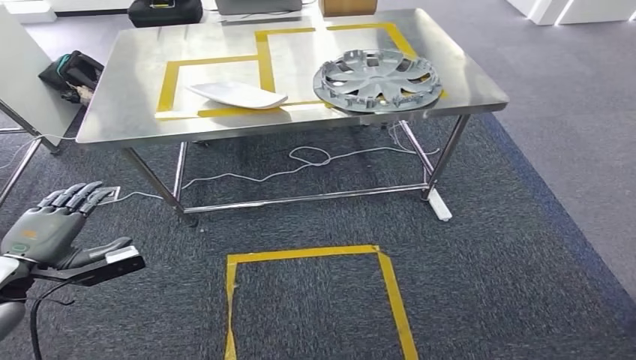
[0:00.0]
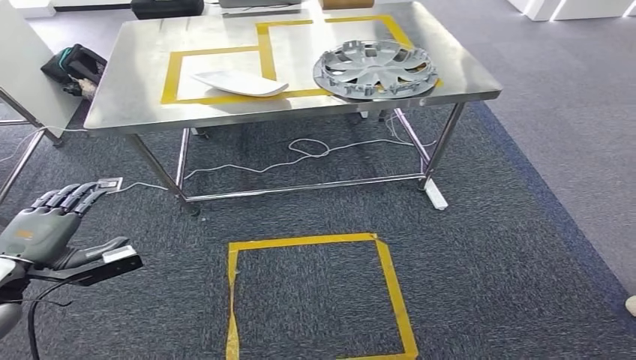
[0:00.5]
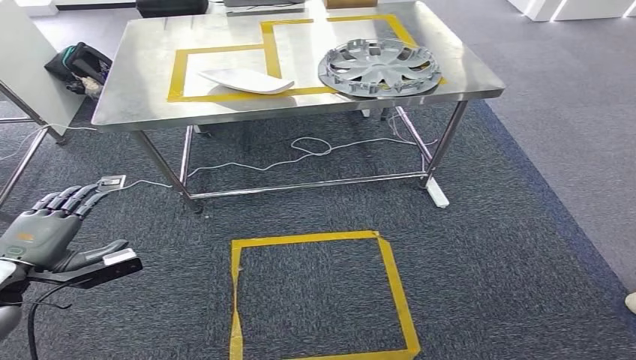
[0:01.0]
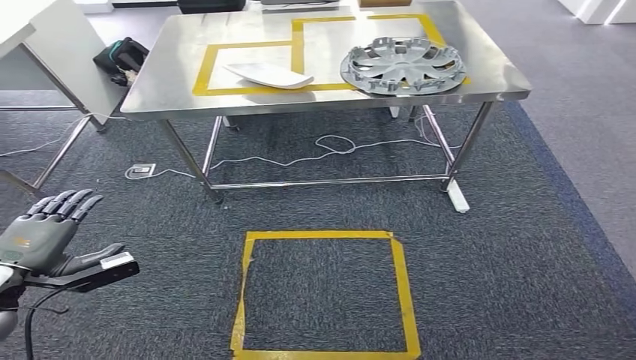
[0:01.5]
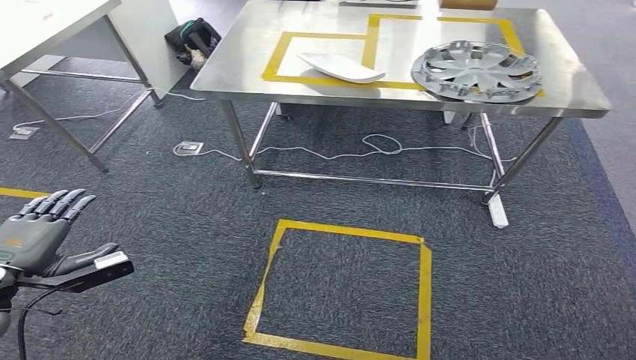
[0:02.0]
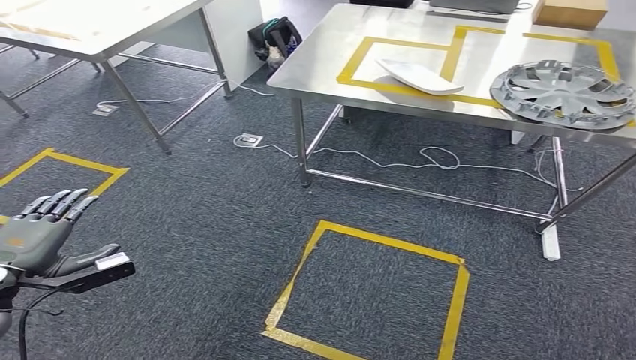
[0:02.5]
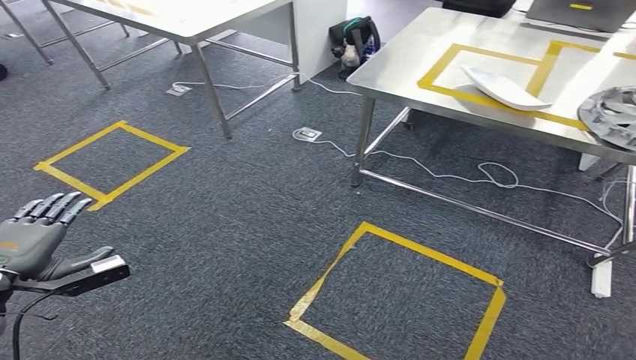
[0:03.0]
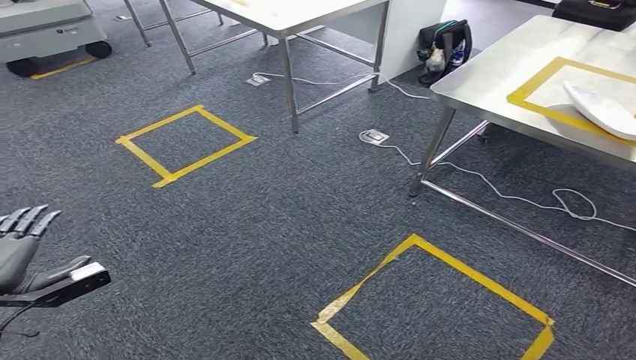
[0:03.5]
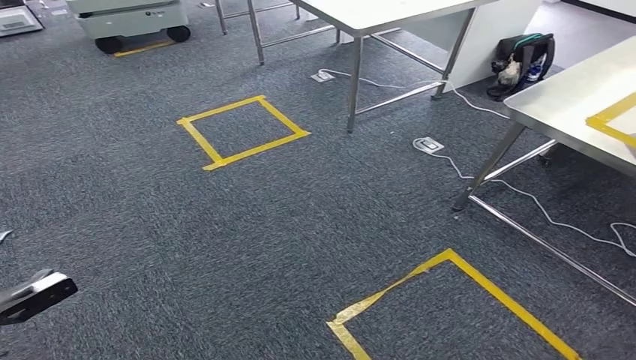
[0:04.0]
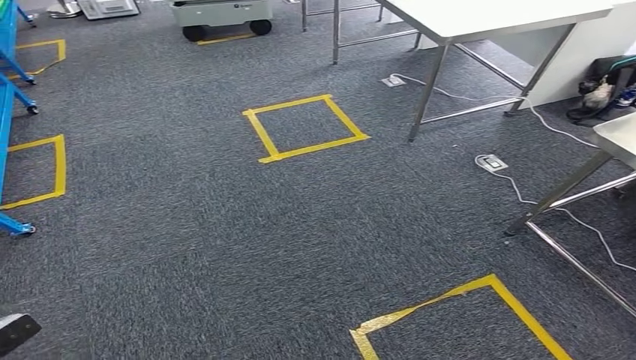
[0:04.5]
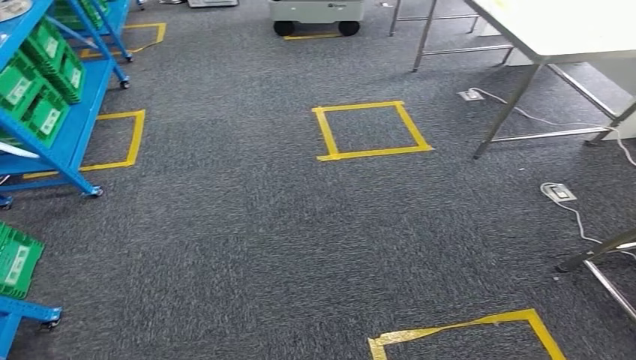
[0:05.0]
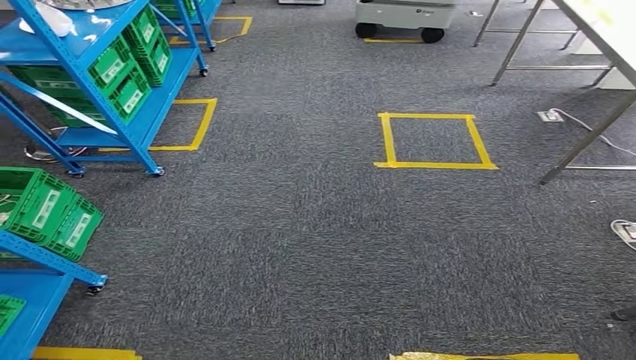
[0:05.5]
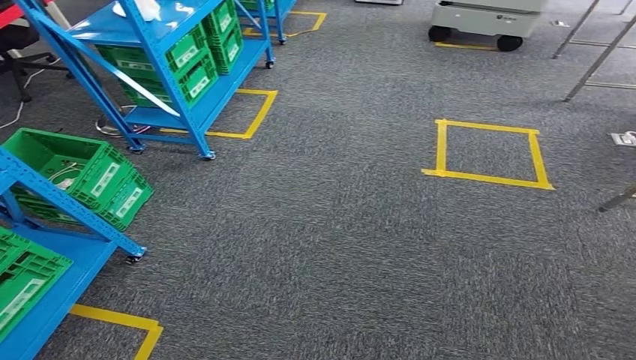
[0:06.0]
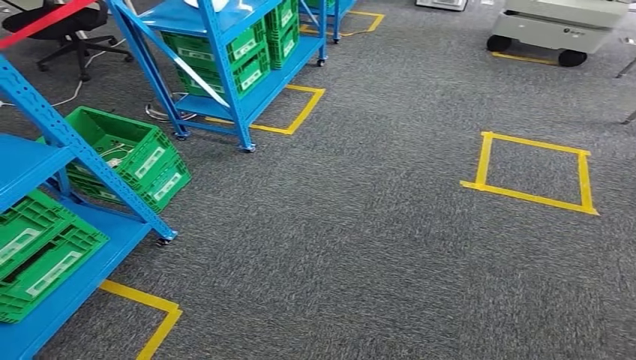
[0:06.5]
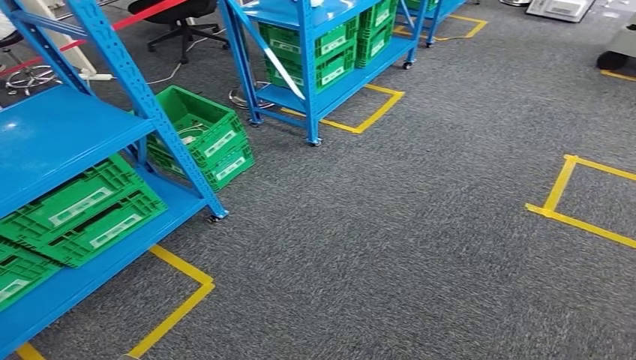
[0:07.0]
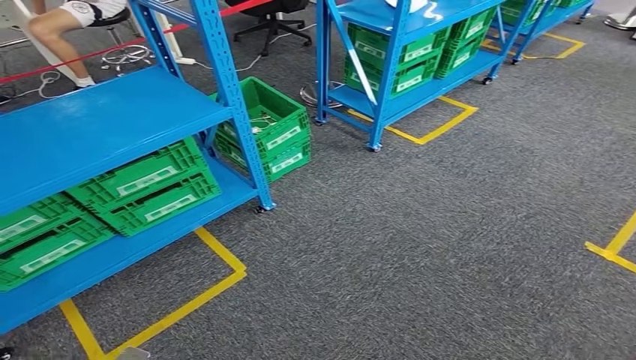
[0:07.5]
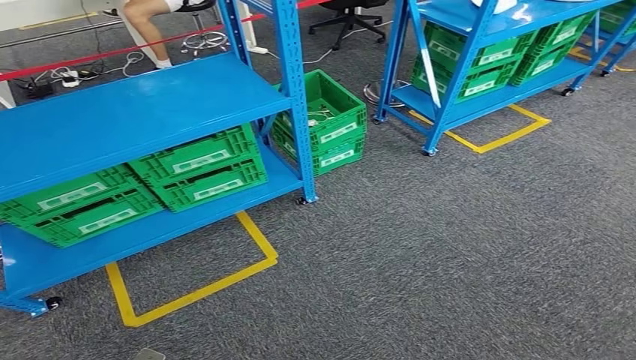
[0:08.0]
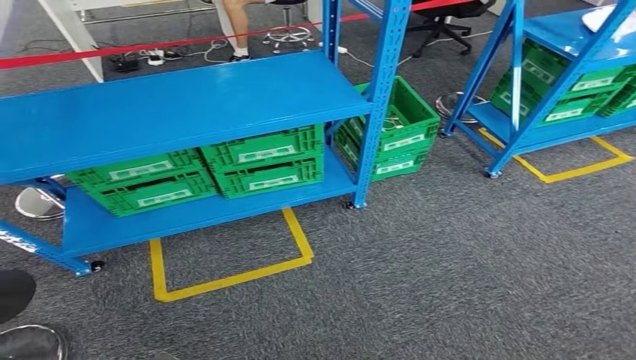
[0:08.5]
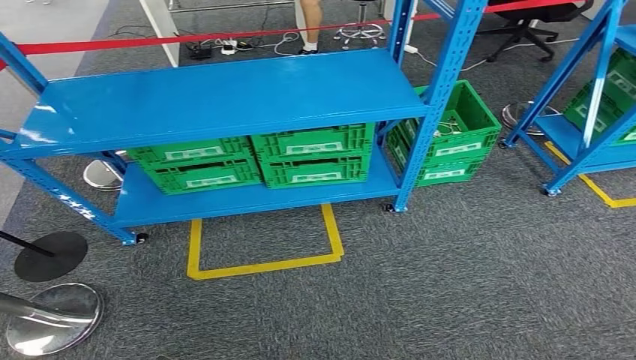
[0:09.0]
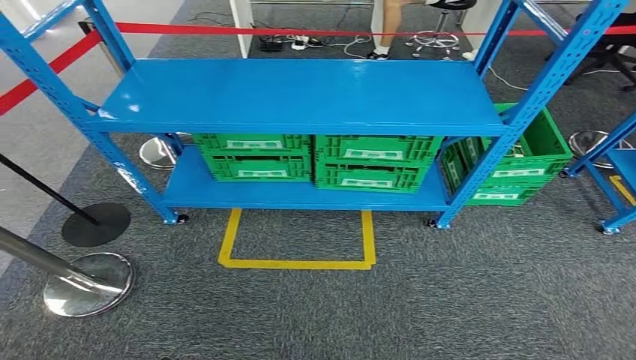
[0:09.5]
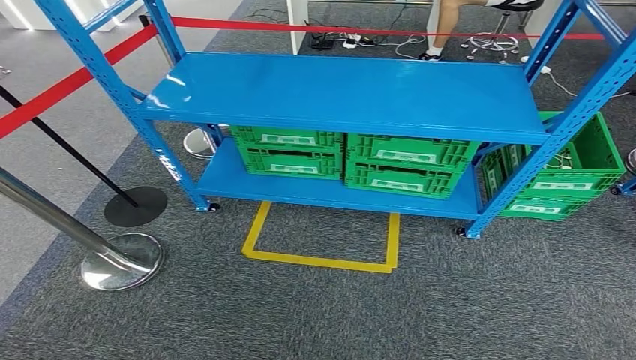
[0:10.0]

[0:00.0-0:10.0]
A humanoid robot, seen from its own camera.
Step, 0:00.0 to 0:10.0: Move to the initial position of the workbench.

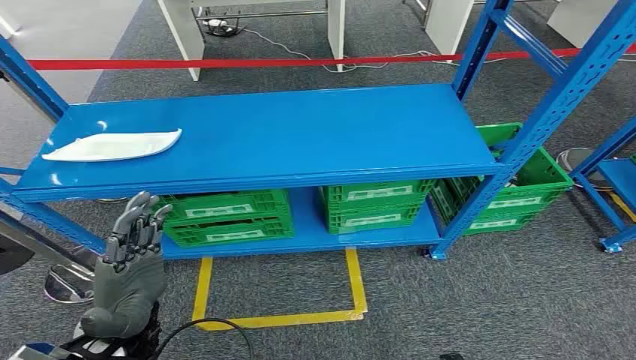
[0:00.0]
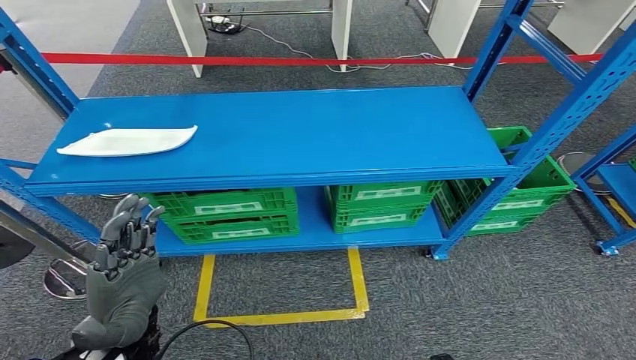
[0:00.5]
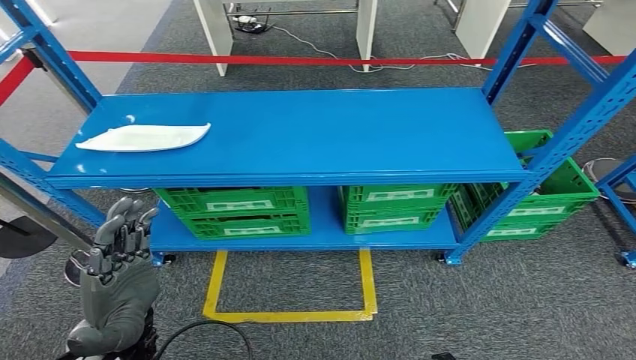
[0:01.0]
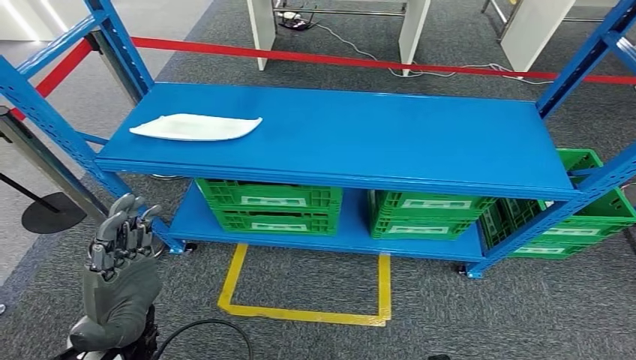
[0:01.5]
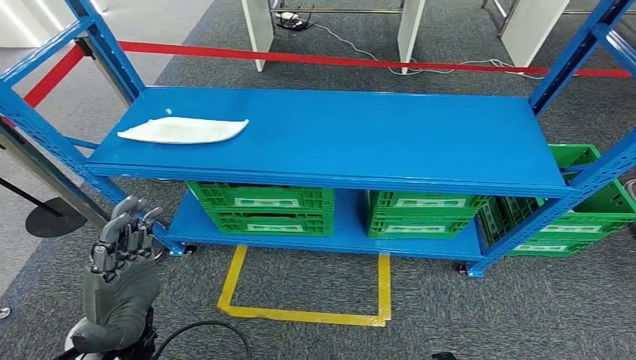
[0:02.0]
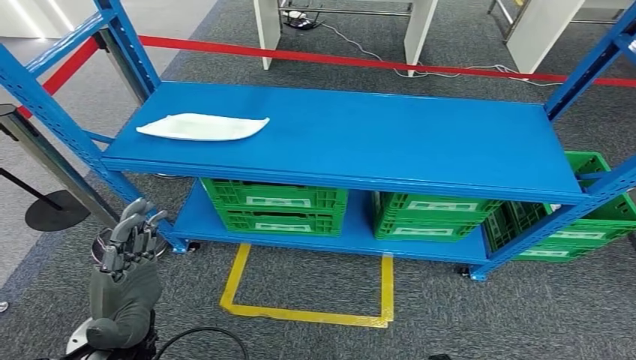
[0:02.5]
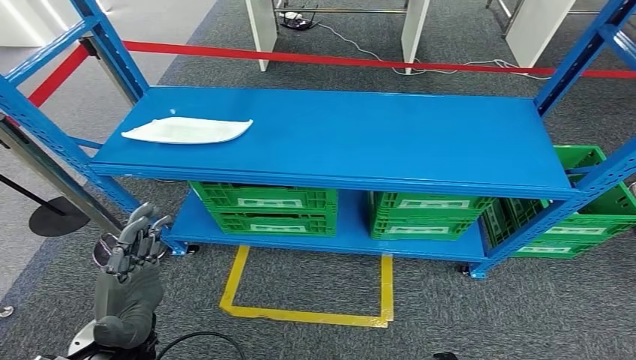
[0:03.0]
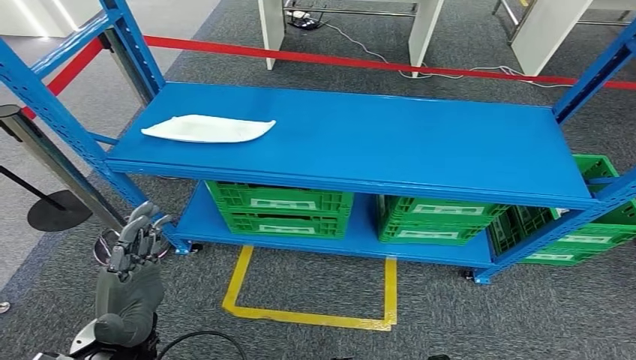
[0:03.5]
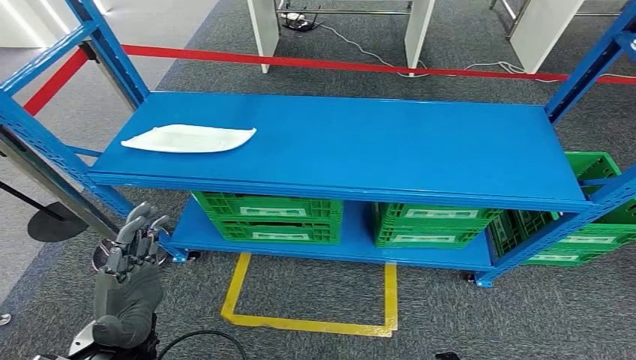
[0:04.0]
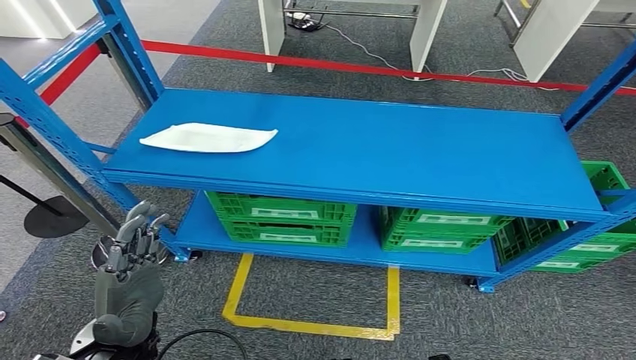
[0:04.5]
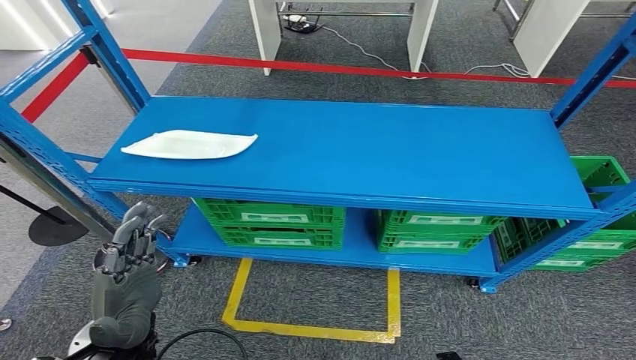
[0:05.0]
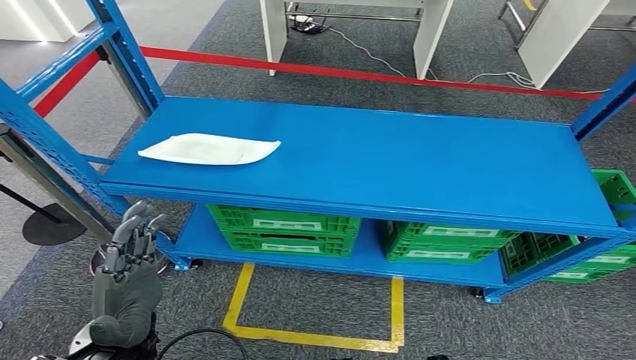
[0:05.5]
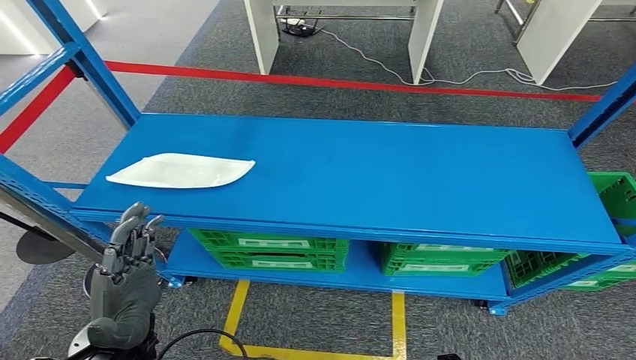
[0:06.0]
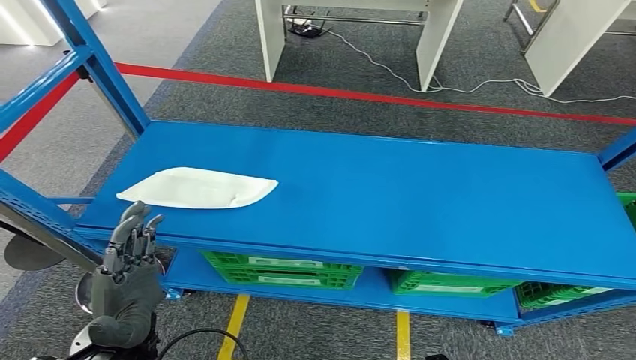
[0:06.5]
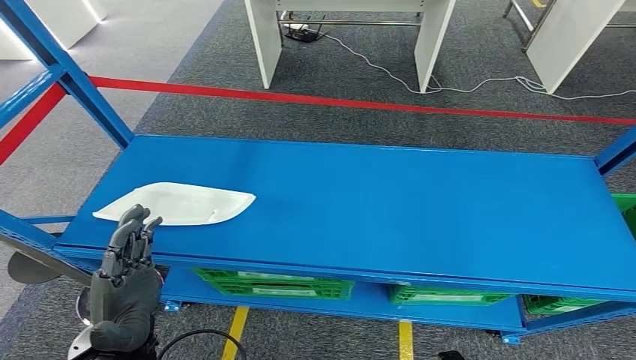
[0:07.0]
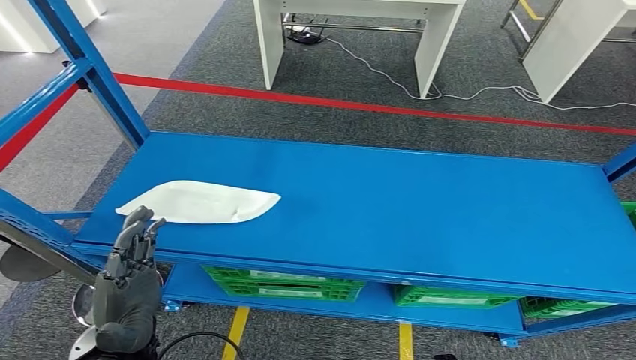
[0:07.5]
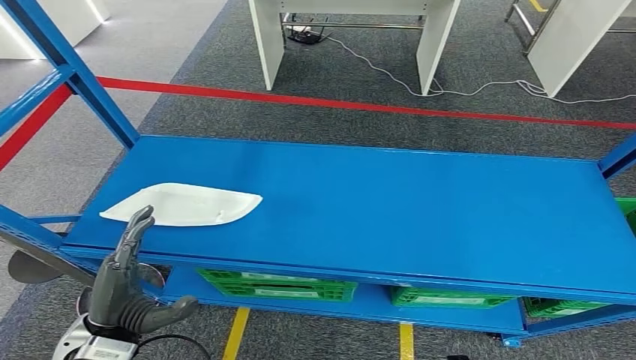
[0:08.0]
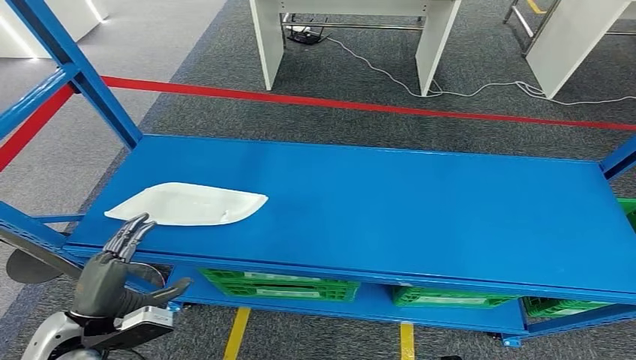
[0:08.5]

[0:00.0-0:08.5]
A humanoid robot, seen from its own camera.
Step, 0:00.0 to 0:08.5: Pick up small parts from the shelf.

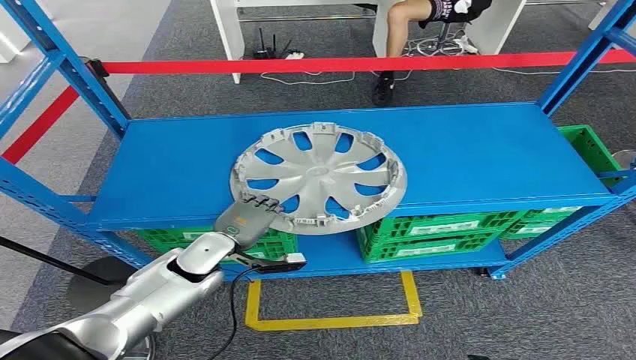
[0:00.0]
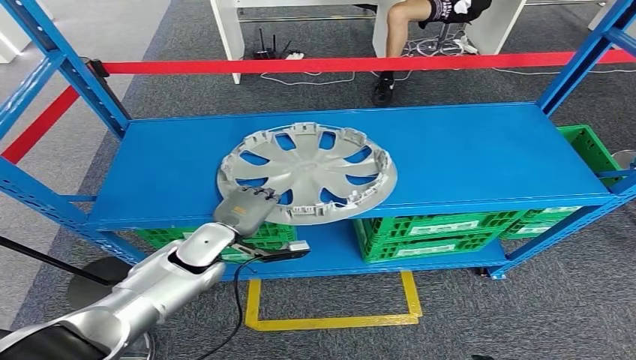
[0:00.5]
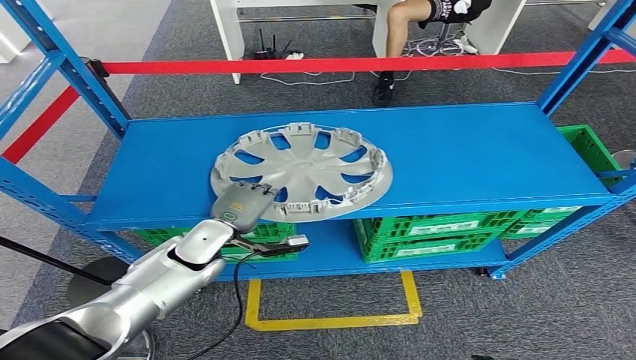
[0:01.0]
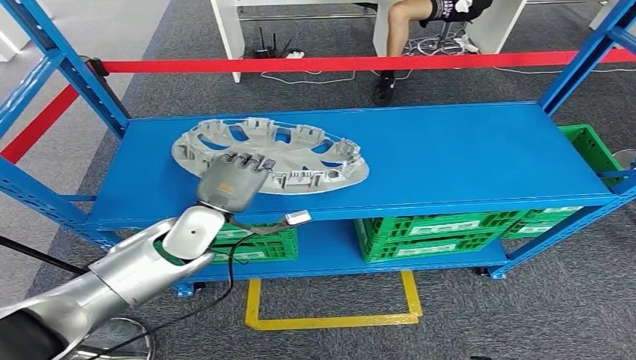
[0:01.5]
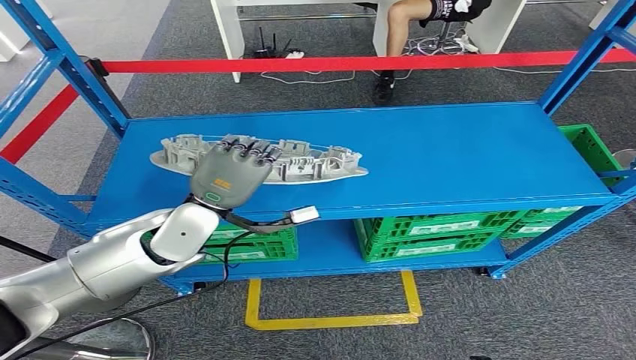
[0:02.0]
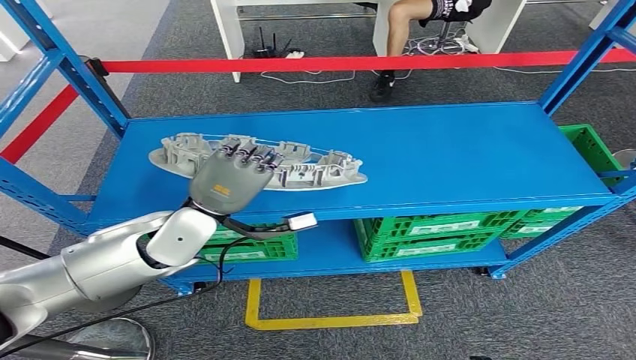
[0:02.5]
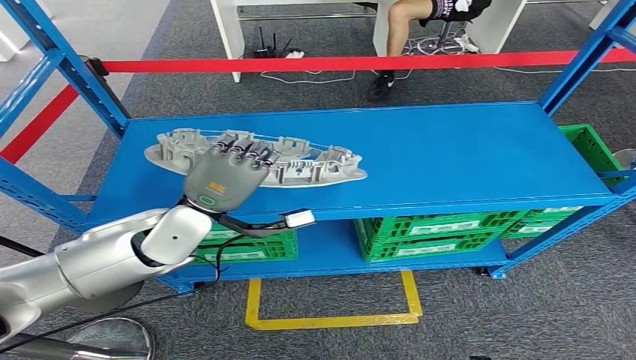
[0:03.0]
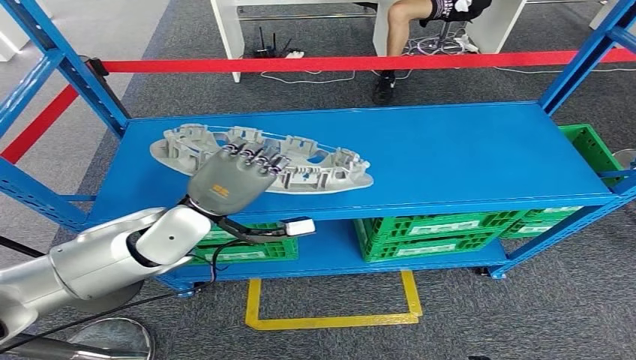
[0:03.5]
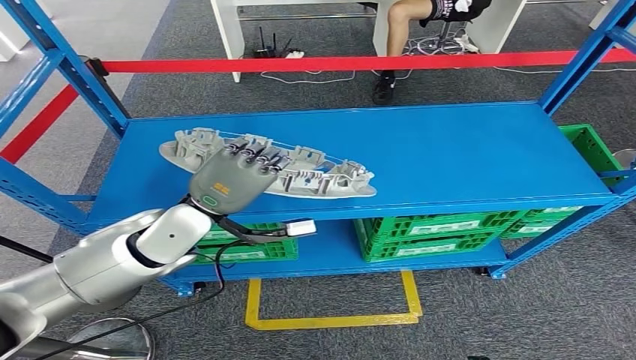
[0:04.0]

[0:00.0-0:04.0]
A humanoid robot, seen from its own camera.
0:02.0 to 0:04.0: There are only small adjustments of the hands.
